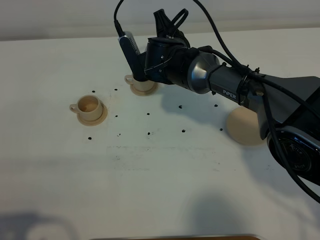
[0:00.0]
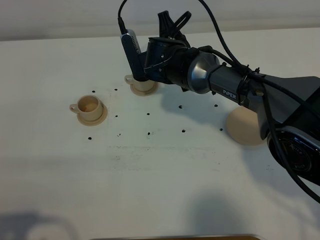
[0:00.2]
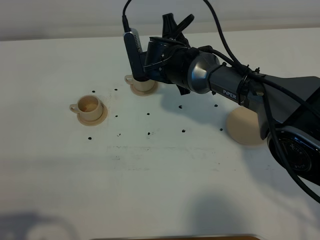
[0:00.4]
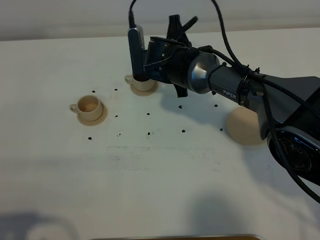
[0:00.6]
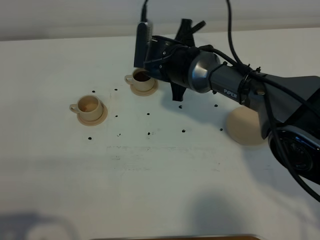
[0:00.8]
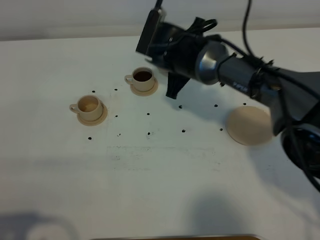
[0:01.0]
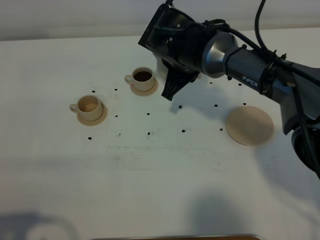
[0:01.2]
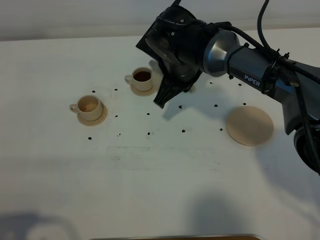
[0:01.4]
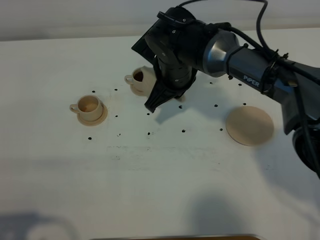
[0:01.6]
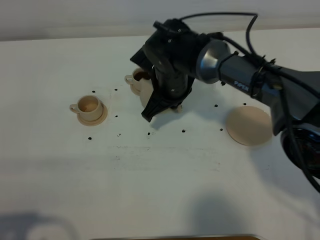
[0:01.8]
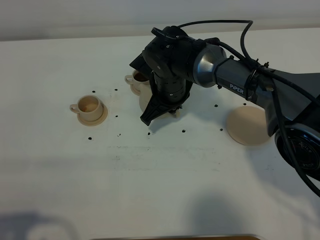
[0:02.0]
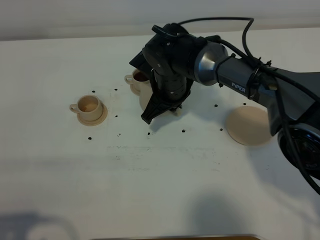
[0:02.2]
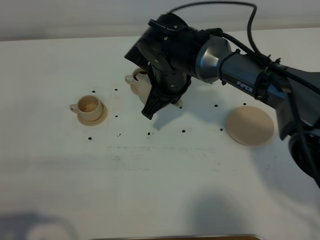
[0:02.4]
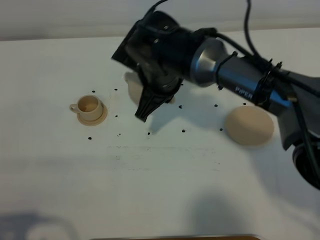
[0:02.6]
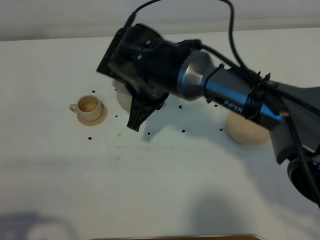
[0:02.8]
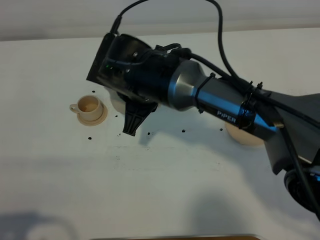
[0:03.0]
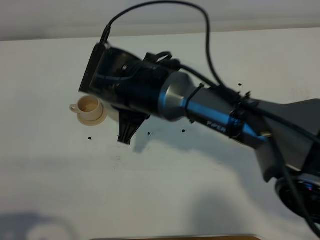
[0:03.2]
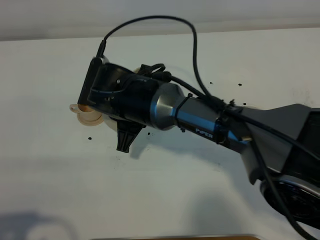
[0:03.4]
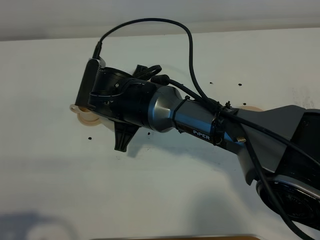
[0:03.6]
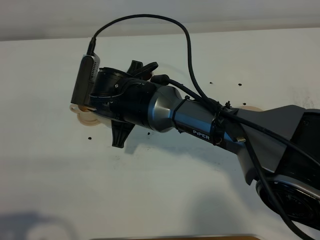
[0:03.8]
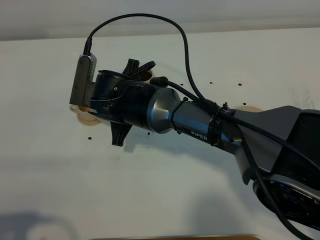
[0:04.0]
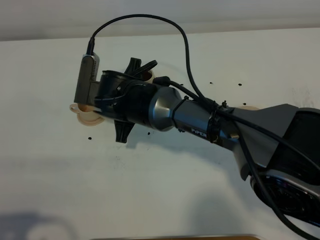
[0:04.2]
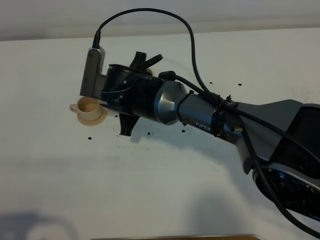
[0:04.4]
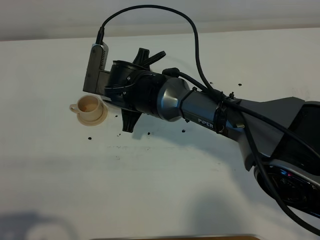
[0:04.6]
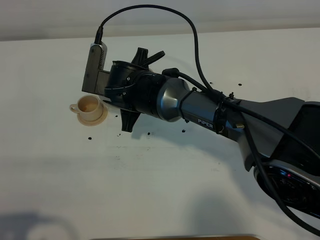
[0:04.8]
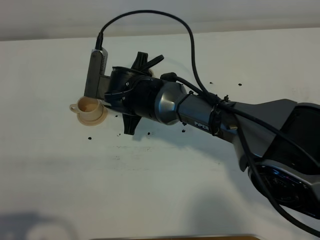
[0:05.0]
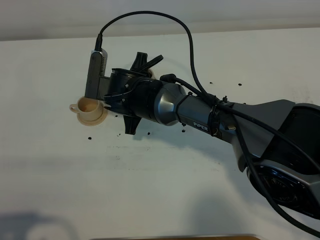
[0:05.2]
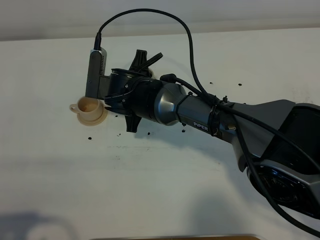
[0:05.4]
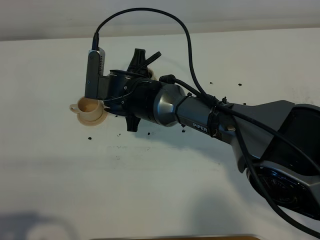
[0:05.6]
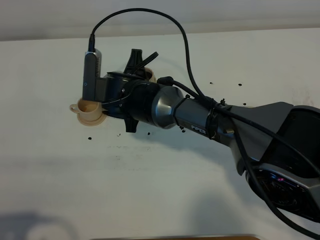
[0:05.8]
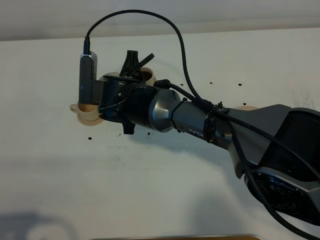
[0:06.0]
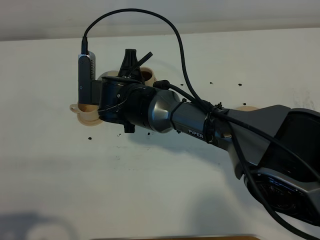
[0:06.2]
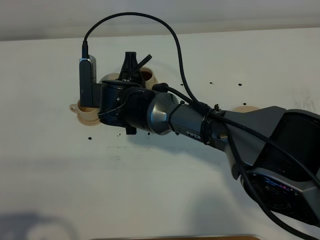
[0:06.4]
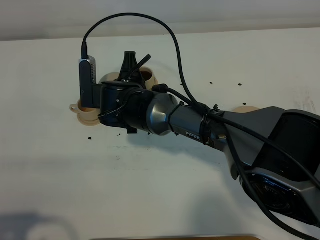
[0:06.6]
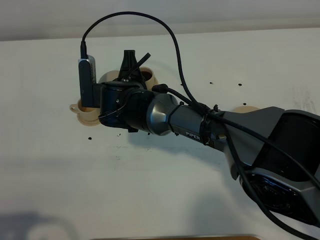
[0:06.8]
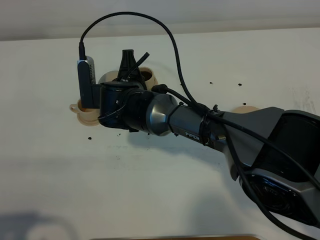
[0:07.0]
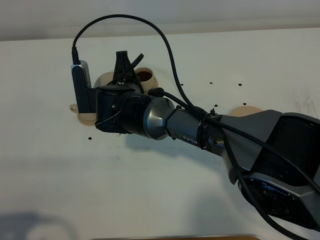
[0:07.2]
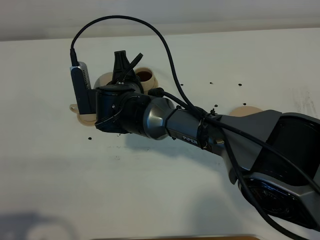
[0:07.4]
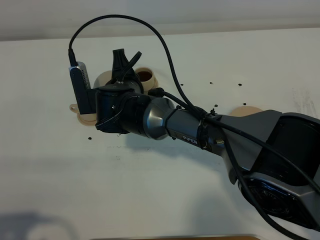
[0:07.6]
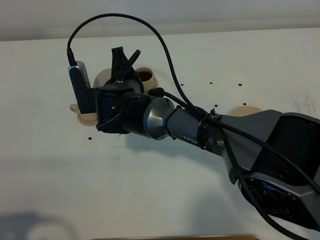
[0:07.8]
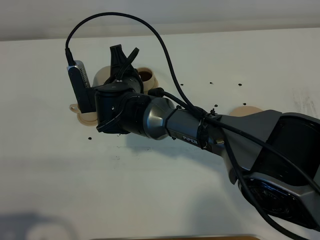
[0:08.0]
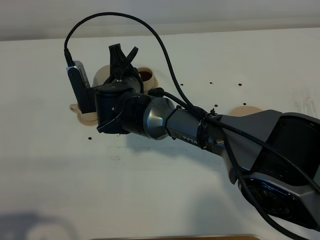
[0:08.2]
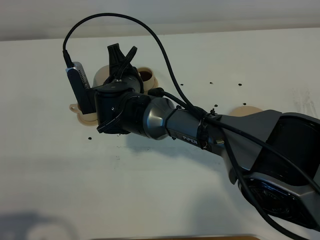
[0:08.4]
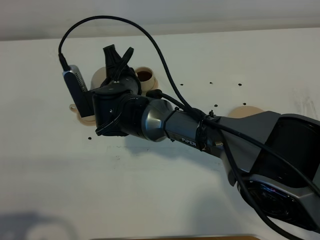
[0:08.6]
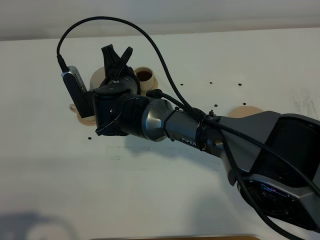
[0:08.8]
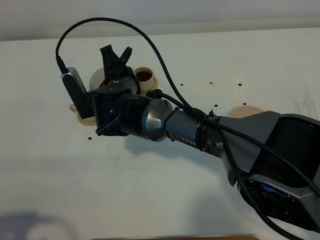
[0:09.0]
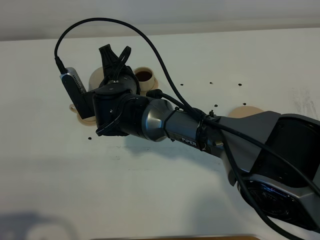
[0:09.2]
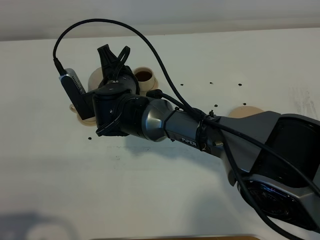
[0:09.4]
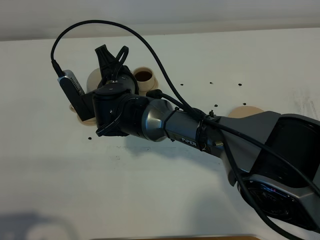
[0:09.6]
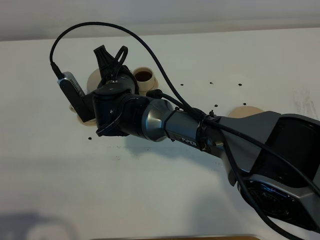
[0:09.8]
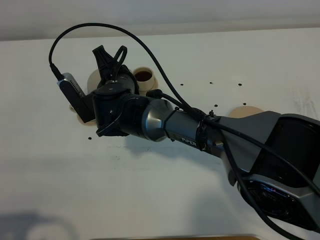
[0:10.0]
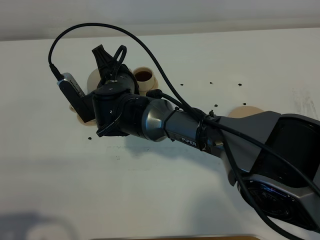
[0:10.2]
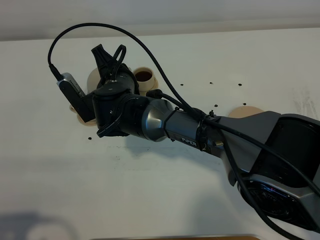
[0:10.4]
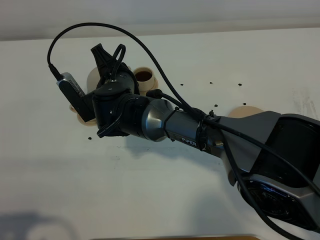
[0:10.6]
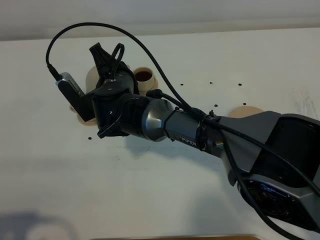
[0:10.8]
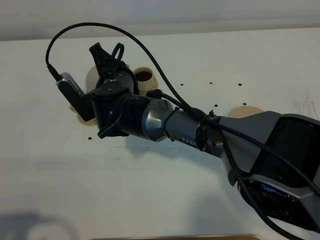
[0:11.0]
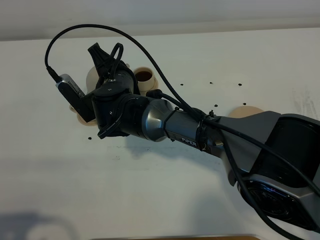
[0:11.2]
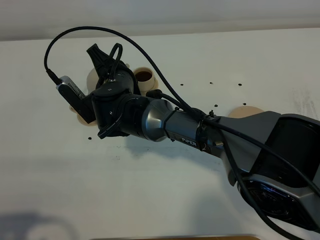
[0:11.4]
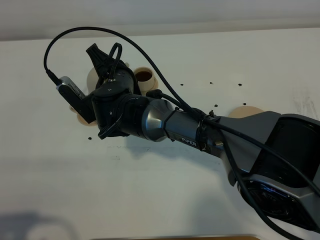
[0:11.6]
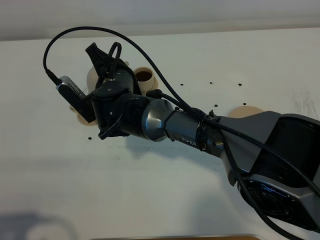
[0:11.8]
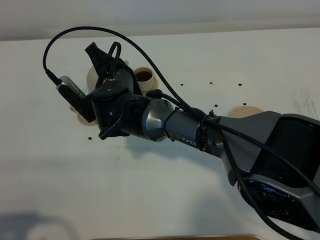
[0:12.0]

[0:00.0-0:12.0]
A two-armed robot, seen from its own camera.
Task of the whole recording: grasp the brown teapot and pour the tea into the two brown teacups one by one, put the brown teapot back in its original place.
0:00.0 to 0:01.6: The right gripper ends up about 5 cm from where it was.
0:01.6 to 0:03.0: The right gripper goes approximately 10 cm to the left and backward.
0:03.0 to 0:04.4: The right gripper ends up about 5 cm from where it was.
0:04.4 to 0:06.0: The grippers stay close to where they were, moving slightly.
0:06.0 to 0:07.6: The grippers stay close to where they were, moving slightly.
0:07.6 to 0:09.0: The grippers stay close to where they were, moving slightly.
0:09.0 to 0:12.0: The grippers make only small movements.

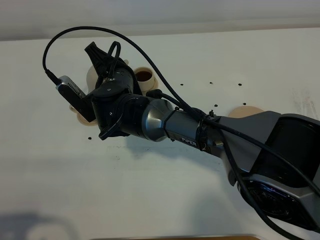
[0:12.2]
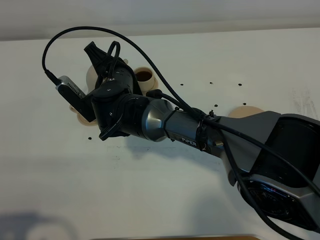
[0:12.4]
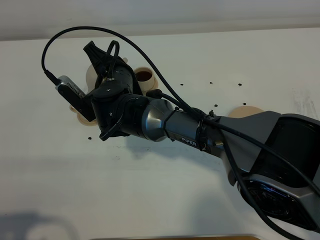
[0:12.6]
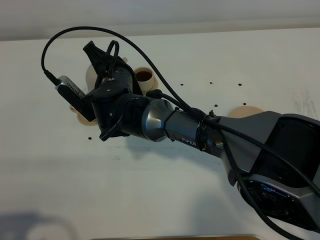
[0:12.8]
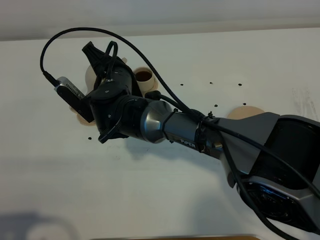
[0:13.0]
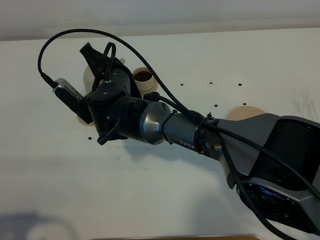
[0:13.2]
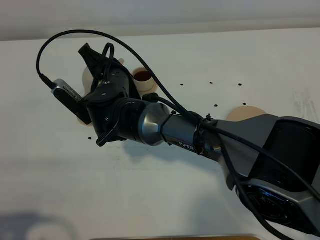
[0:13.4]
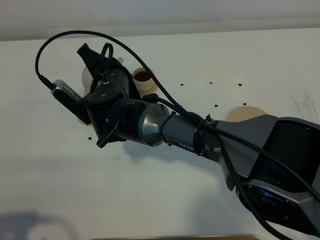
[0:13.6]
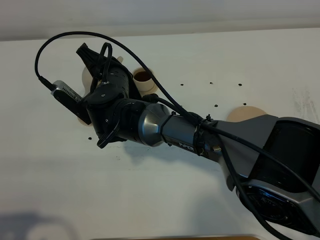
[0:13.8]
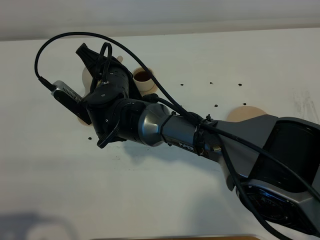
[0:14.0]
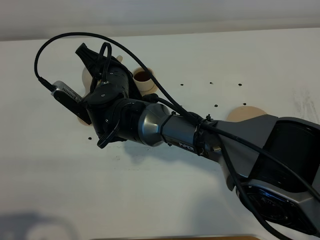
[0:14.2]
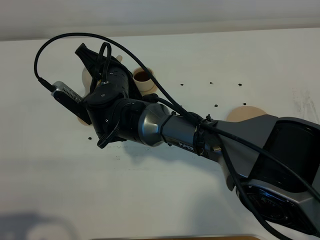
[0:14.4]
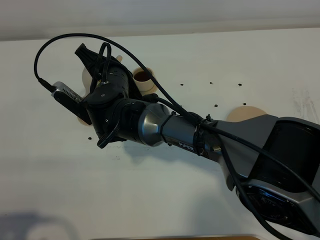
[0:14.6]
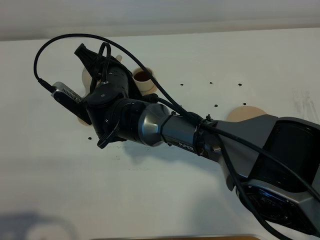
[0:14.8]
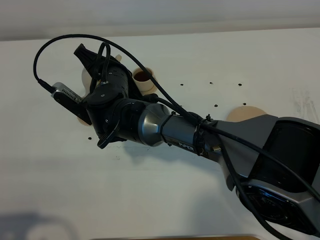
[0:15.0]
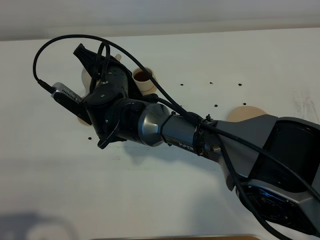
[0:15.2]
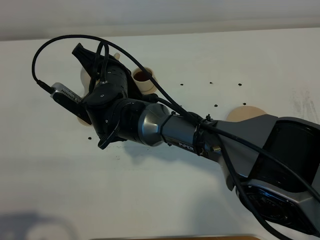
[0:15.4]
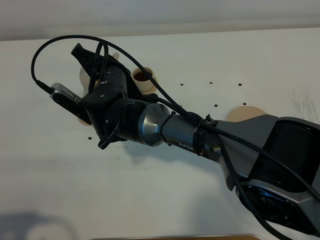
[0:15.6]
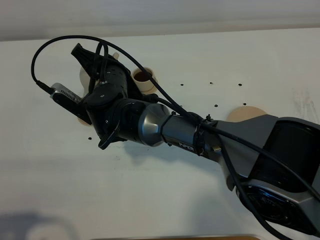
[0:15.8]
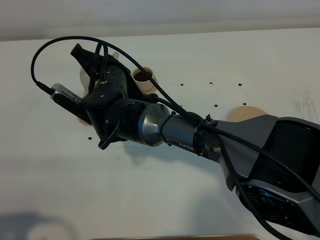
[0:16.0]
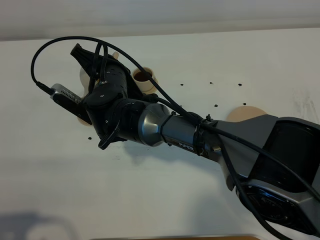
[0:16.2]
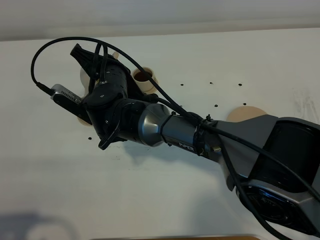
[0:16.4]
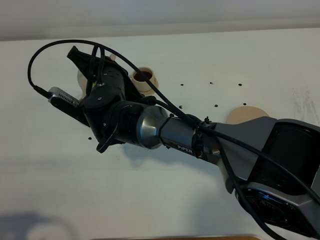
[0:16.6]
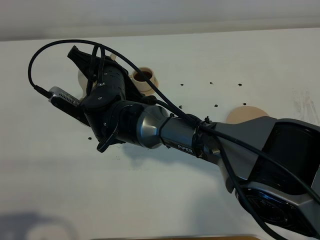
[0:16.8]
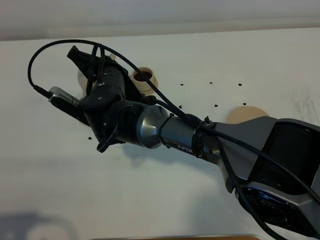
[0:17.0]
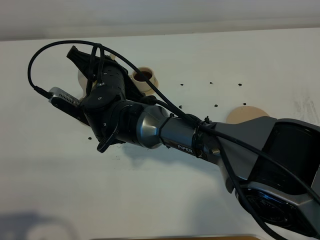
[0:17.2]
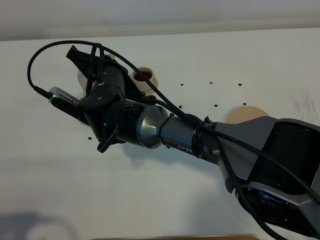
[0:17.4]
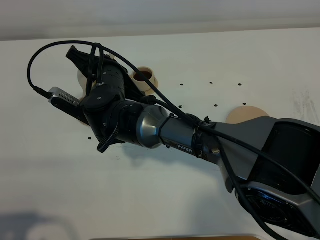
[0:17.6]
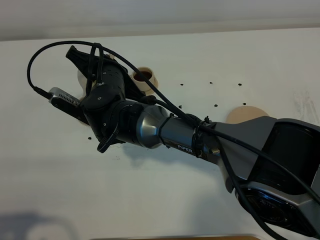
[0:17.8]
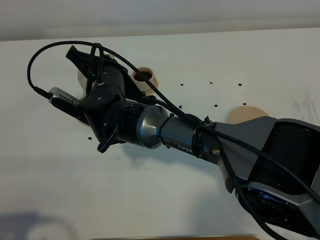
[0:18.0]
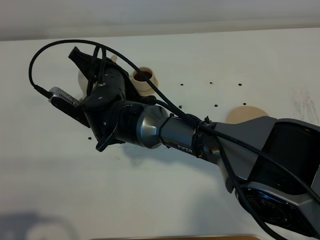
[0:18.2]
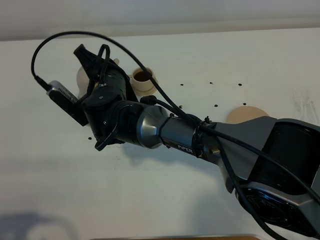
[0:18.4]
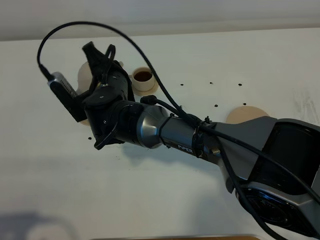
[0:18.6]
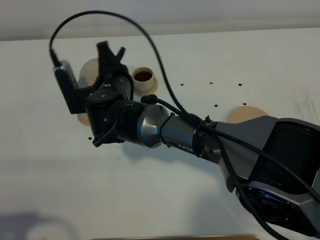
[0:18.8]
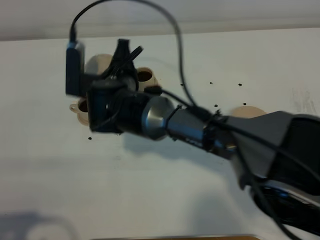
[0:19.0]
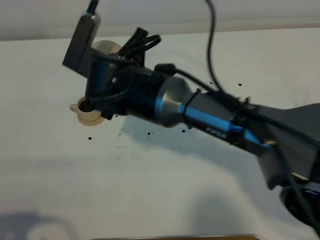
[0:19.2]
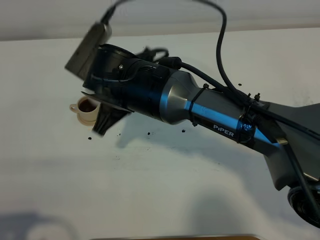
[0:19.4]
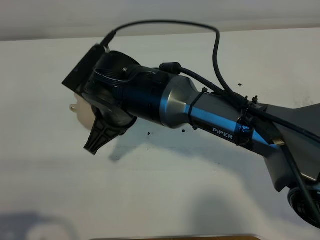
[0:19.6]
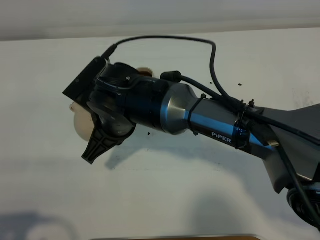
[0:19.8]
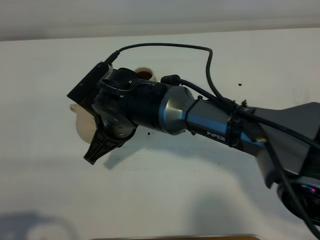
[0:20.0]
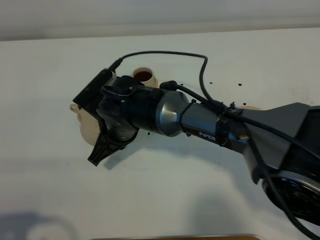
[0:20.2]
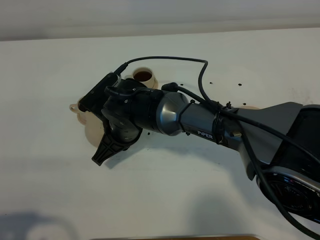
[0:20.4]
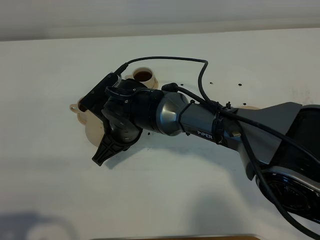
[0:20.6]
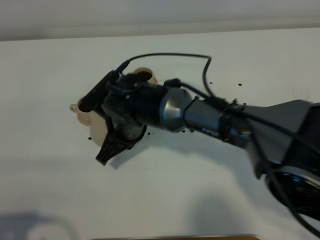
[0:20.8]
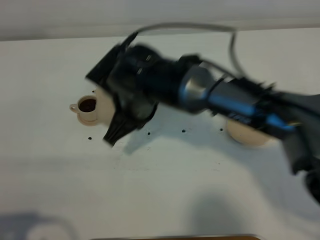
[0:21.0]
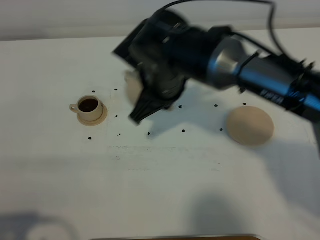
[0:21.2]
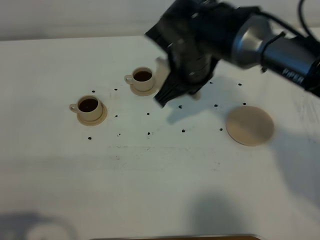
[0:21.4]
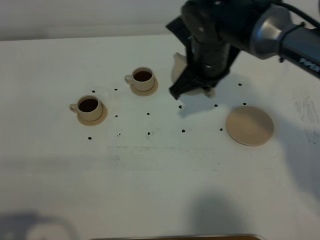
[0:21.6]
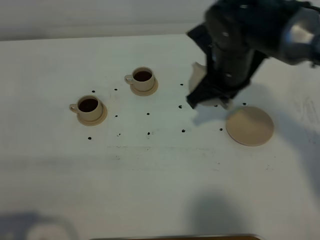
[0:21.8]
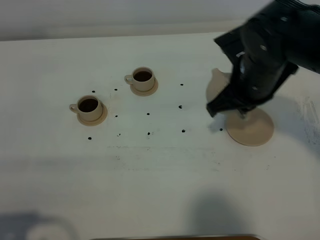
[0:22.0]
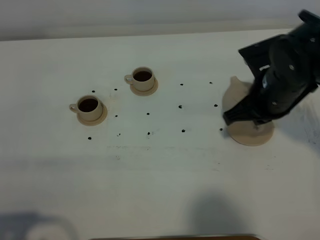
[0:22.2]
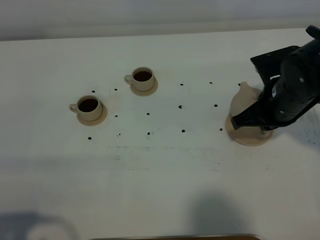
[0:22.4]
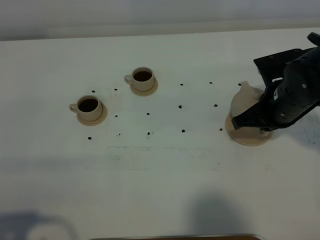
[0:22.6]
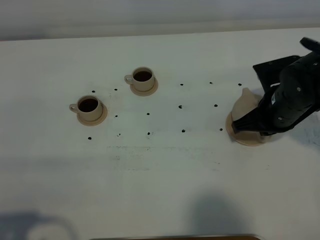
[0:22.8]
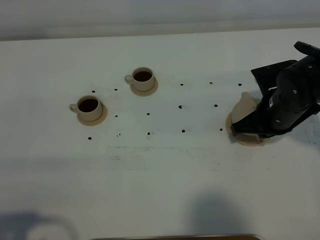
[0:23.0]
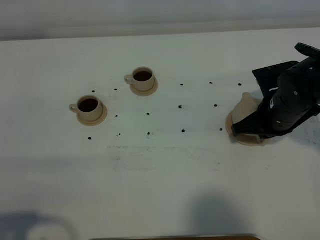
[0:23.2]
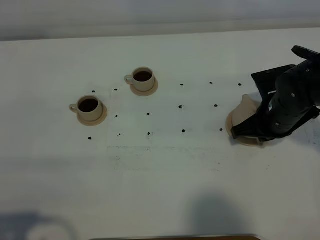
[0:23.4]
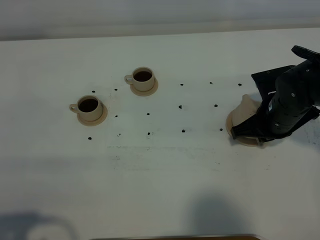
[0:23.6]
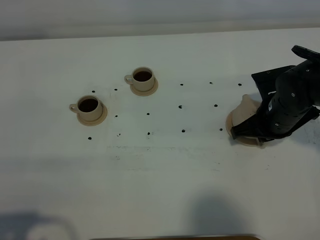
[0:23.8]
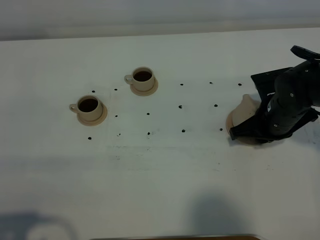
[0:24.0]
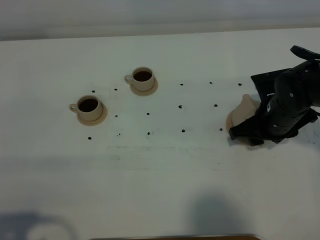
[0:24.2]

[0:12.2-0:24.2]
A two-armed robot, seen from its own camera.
Task of the whole recording: grasp the brown teapot and pour the tea into the two brown teacups one by one, put the brown teapot back in its original place.
Step, 0:12.2 to 0:18.6: Pour tea into the teacup with the right gripper.
0:12.2 to 0:13.8: There are only small adjustments of the grippers.
0:13.8 to 0:15.2: Both grippers stay put.
0:15.2 to 0:16.6: Both grippers stay about where they are.
0:16.6 to 0:18.2: Both grippers stay put.
0:18.2 to 0:19.8: The right gripper heads backward, covering some 5 cm.
0:19.8 to 0:21.2: The right gripper goes some 10 cm to the right.
0:21.2 to 0:22.6: The right gripper is displaced to the right by roughly 20 cm.
0:22.6 to 0:24.2: The right gripper opens.
